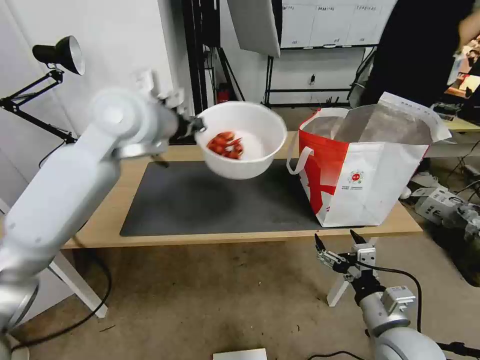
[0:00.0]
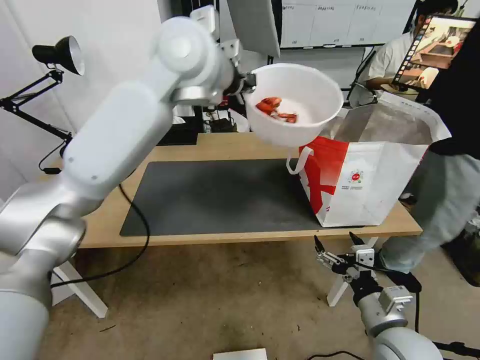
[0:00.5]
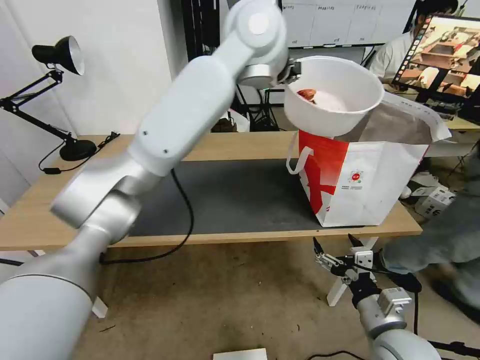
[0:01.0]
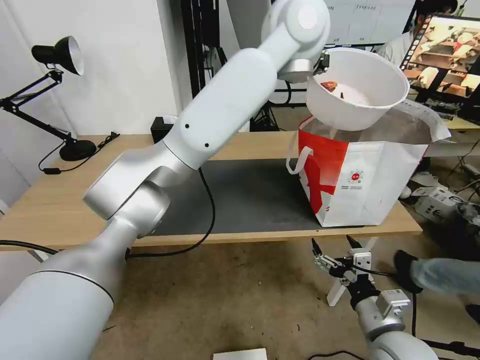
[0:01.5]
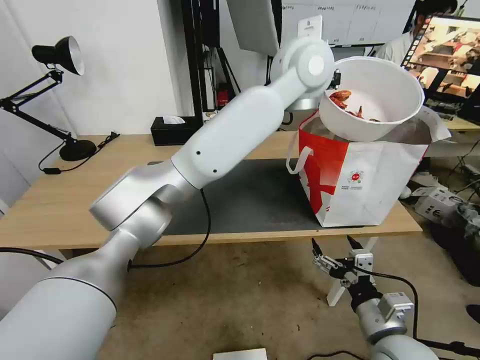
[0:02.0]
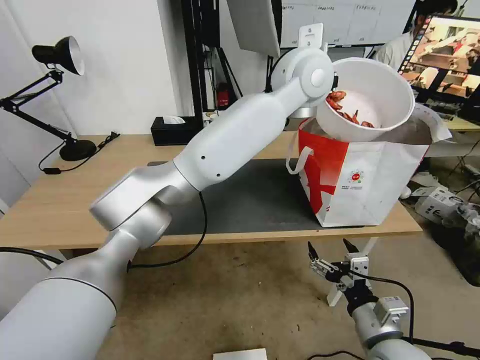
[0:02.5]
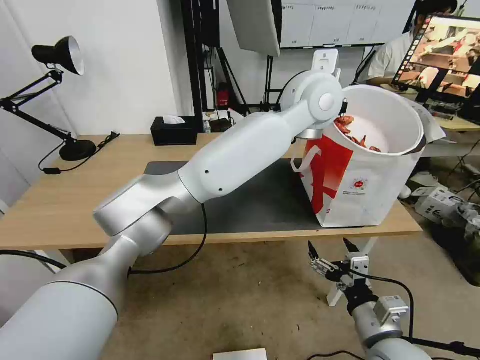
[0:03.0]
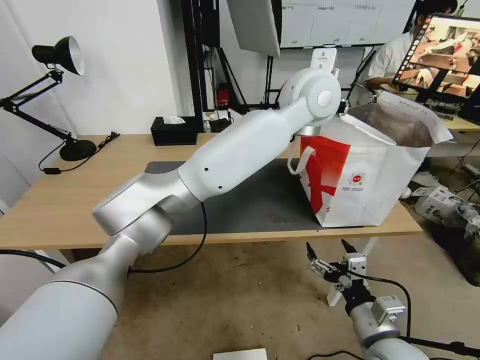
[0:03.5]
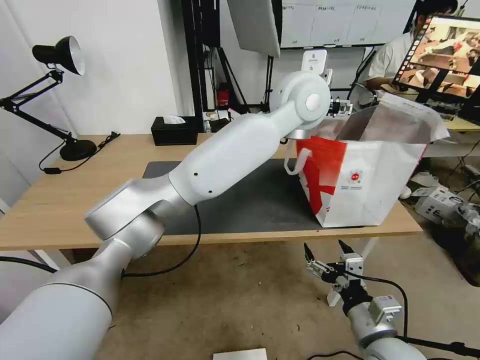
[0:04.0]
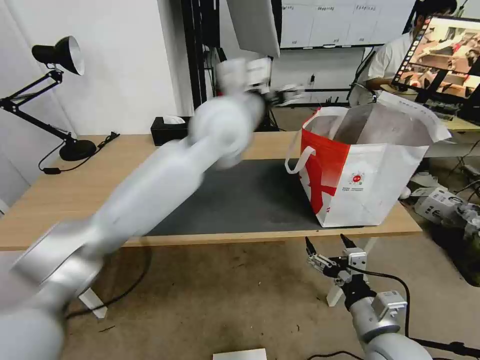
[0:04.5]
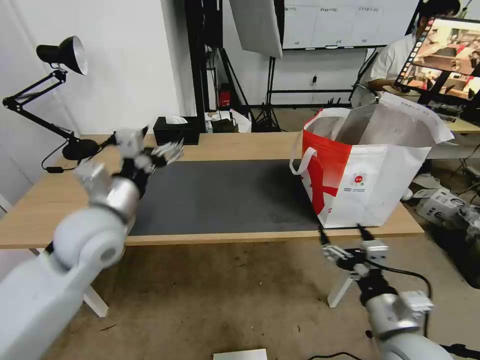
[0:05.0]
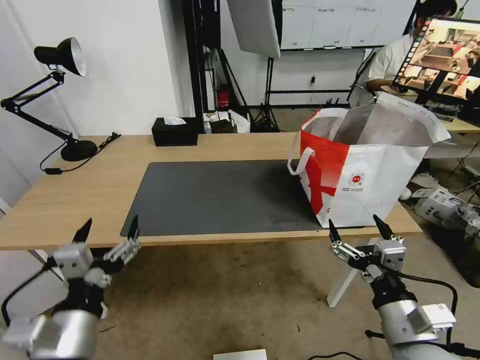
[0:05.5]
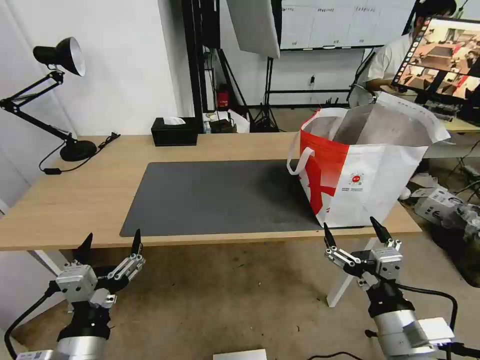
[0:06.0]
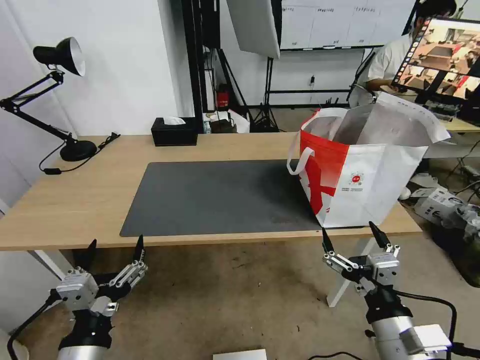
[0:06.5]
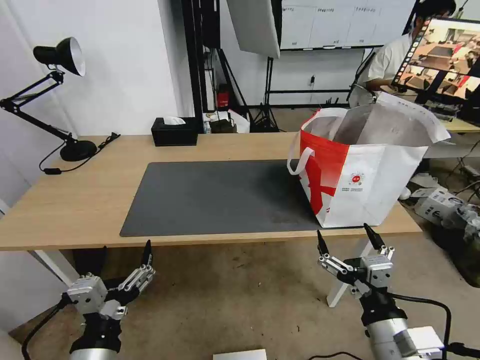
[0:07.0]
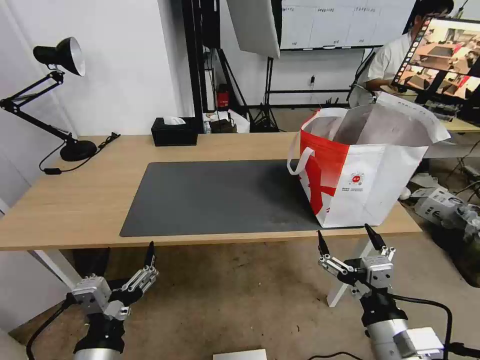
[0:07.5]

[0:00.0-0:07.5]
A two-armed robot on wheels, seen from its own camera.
Task of the whole recording: Pick up the trash from the table and place it into the takeout bag.
0:00.0 to 0:02.0: The left gripper travels to the right by about 30 cm.
0:02.0 to 0:04.0: The left gripper opens.
0:04.0 to 0:05.5: The right gripper travels upward by roughly 5 cm. Meanwhile the left gripper goes roughly 60 cm backward, to the left and downward.
0:05.5 to 0:07.5: The left gripper shifts by roughly 5 cm.
